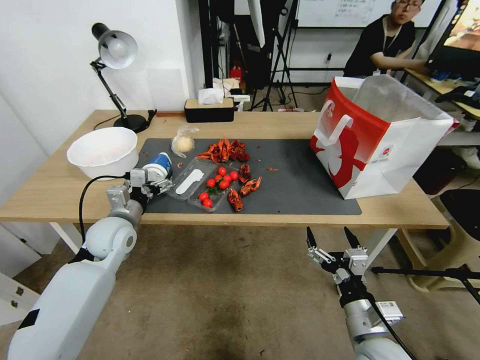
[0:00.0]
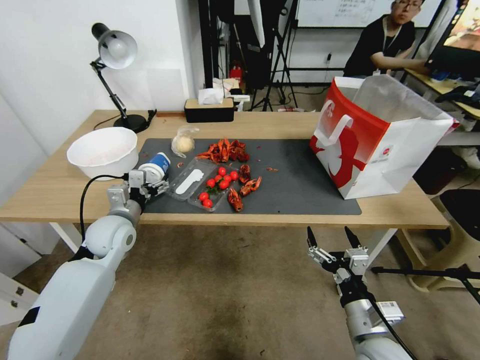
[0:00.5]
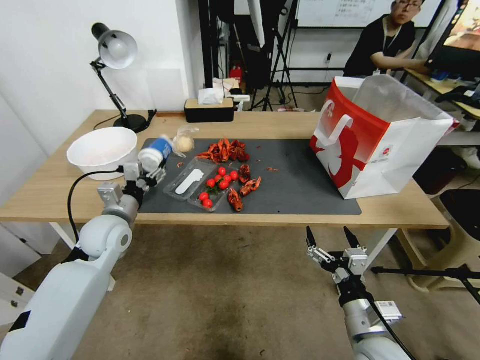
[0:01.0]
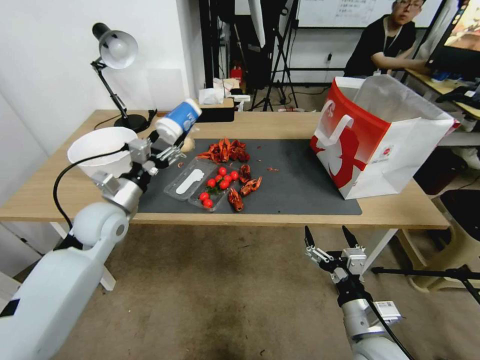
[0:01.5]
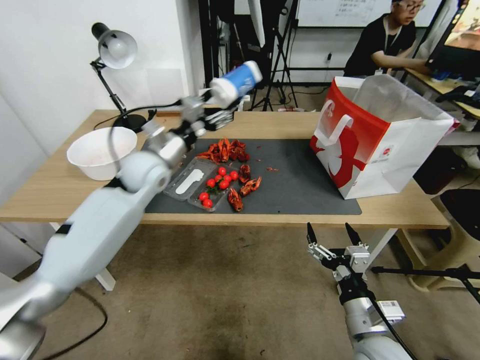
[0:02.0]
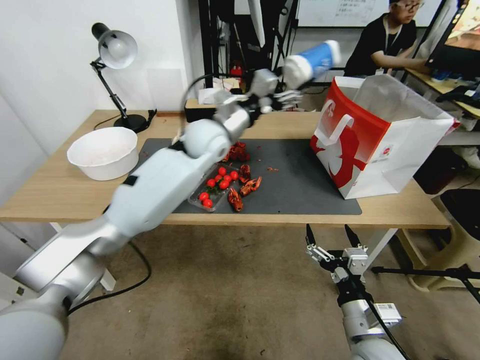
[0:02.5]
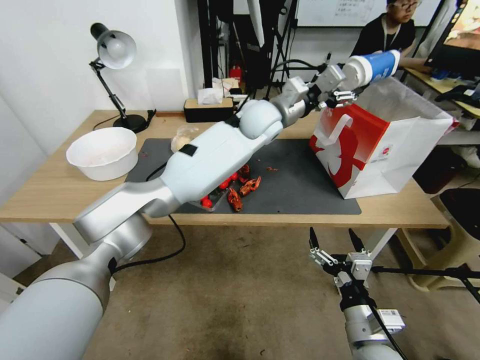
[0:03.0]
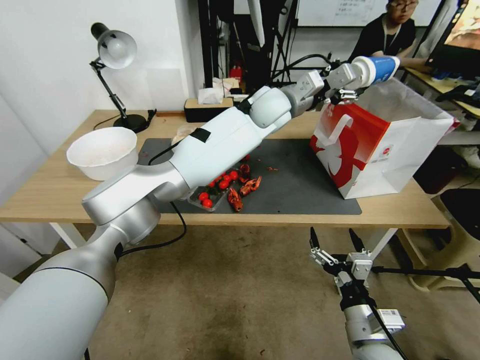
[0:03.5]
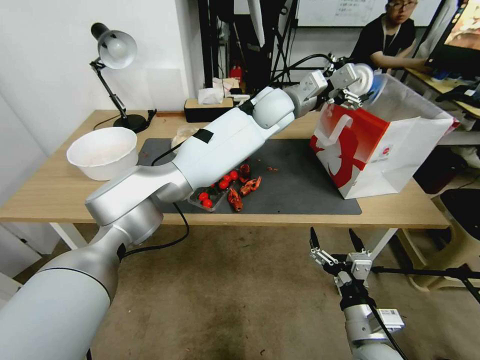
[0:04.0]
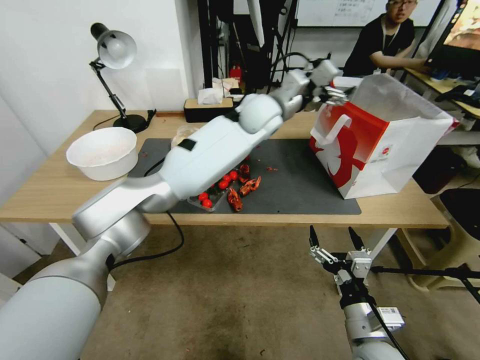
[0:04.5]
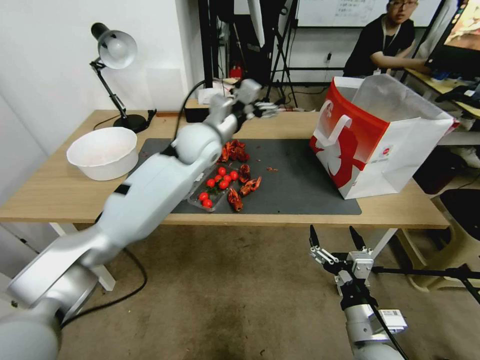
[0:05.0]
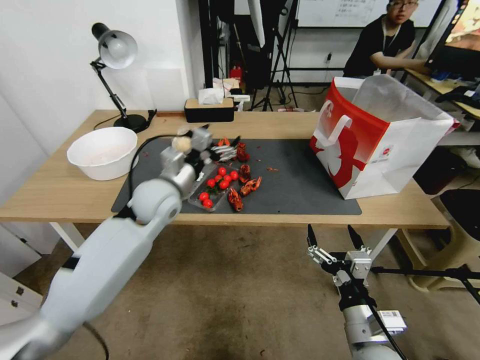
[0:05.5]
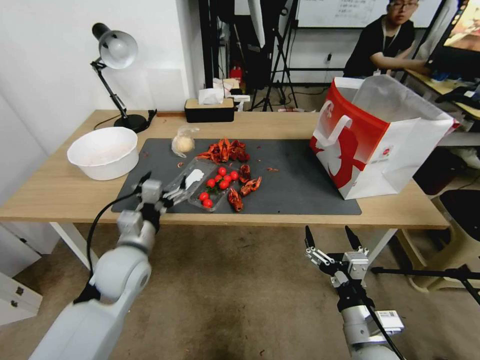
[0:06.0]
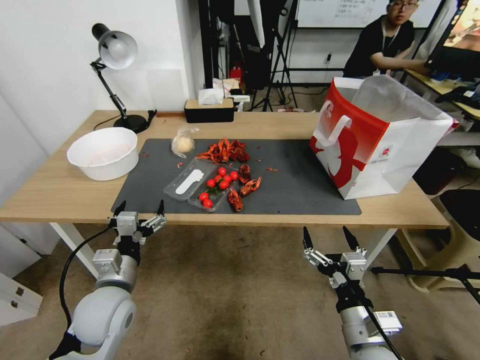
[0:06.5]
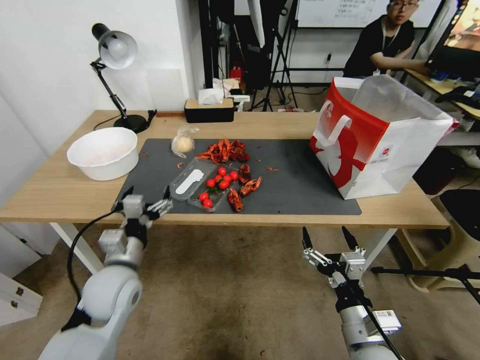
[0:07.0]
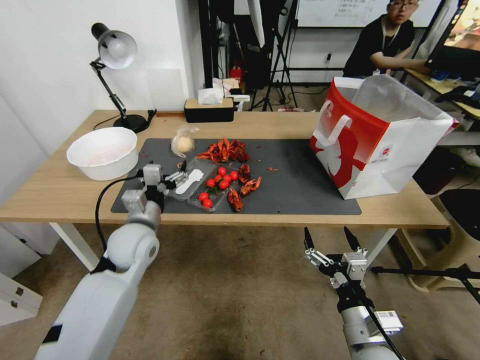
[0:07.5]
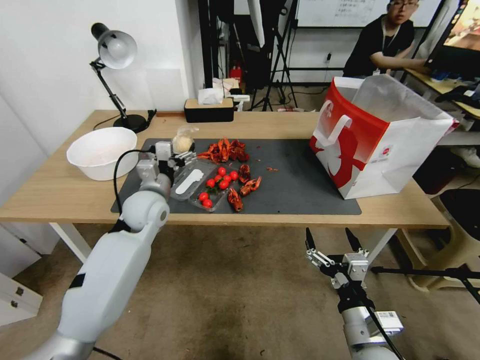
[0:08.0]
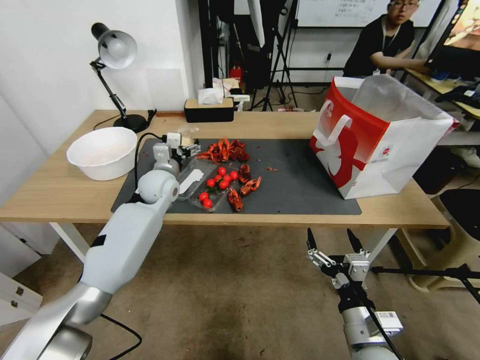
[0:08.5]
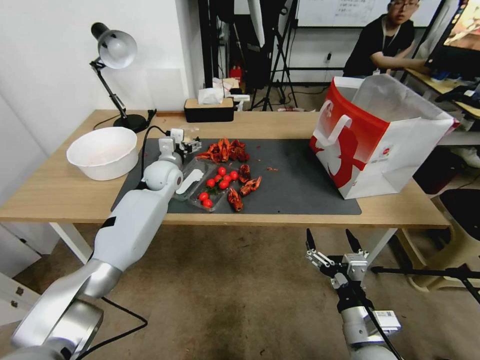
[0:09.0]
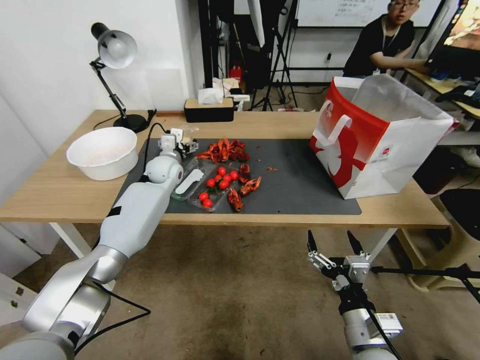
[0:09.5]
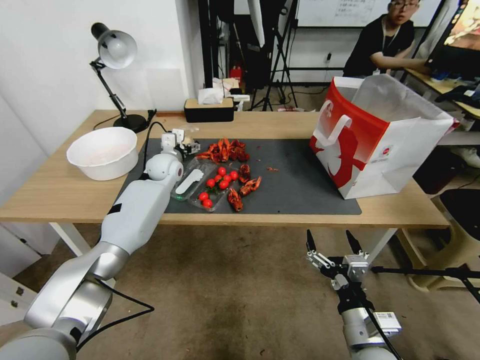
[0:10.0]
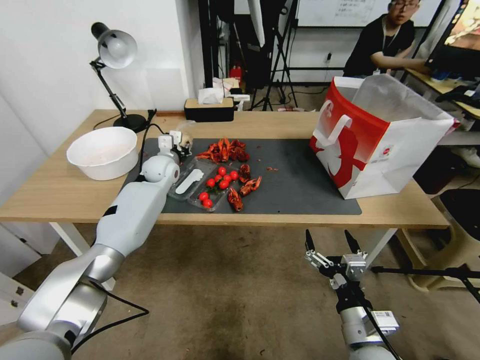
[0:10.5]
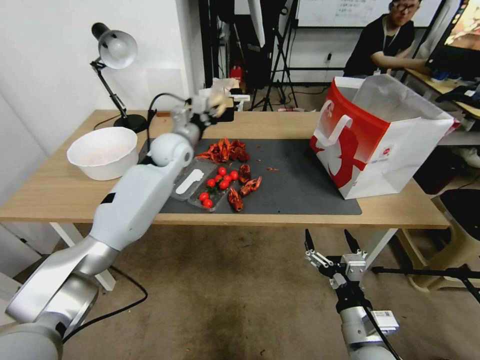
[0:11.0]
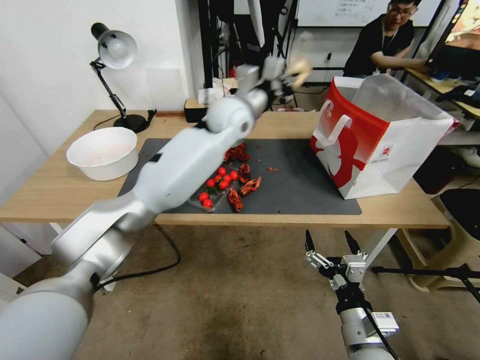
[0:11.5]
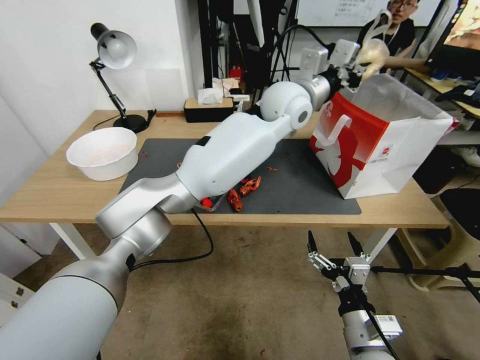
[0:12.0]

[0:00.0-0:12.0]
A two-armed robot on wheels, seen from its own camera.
0:00.0 to 0:02.0: The left gripper moves upward, forward and to the right, approximately 20 cm, and closes its fingers.
0:02.0 to 0:04.0: The left gripper goes roughly 30 cm to the right, and opens.
0:04.0 to 0:06.0: The left gripper goes roughly 40 cm to the left, backward and downward.
0:06.0 to 0:08.0: The left gripper travels forward by about 10 cm.
0:08.0 to 0:10.0: The left gripper heads forward, covering some 15 cm.
0:10.0 to 0:12.0: The left gripper travels to the right and upward by some 40 cm, and closes its fingers.

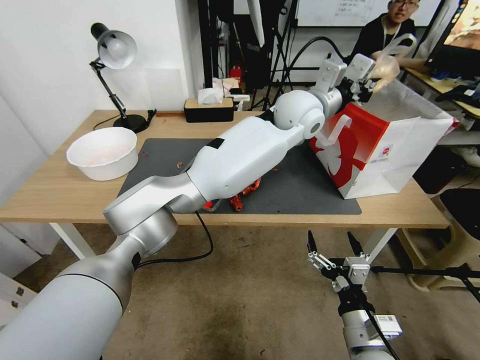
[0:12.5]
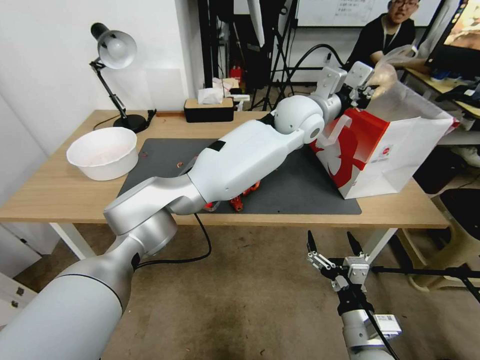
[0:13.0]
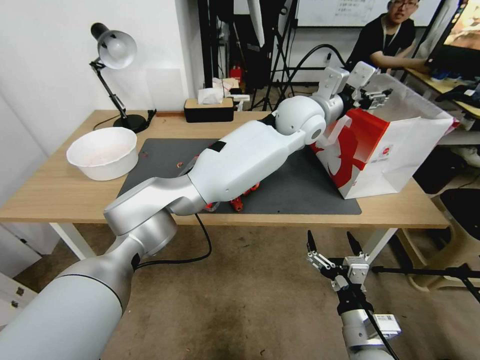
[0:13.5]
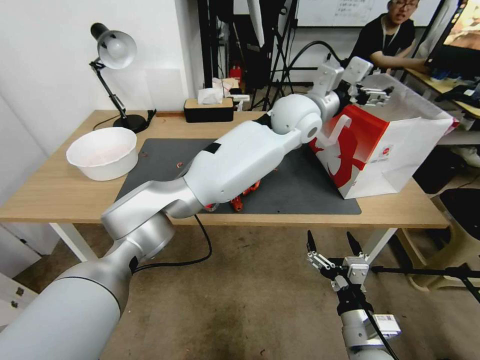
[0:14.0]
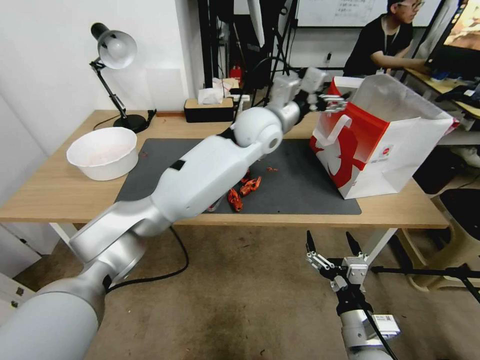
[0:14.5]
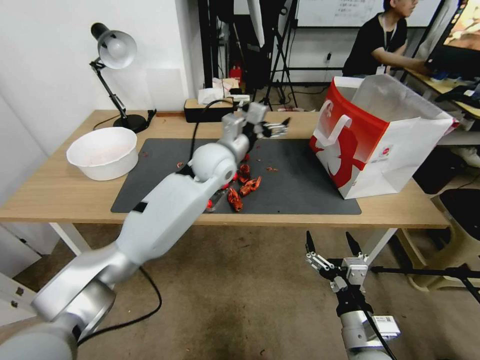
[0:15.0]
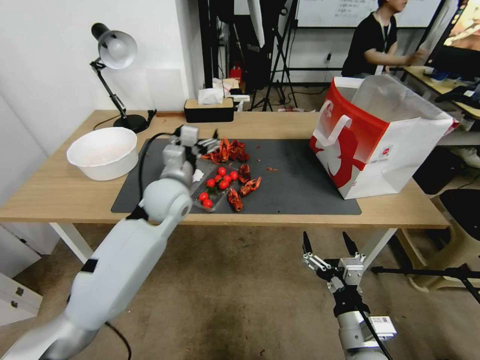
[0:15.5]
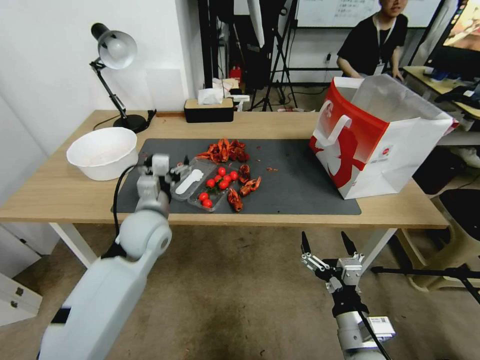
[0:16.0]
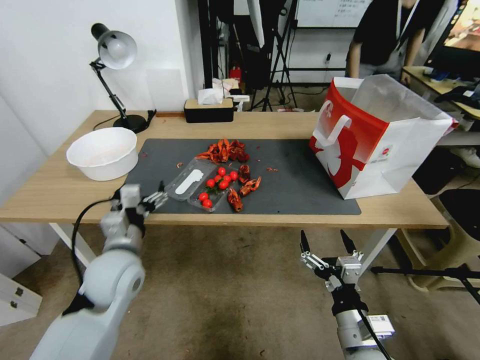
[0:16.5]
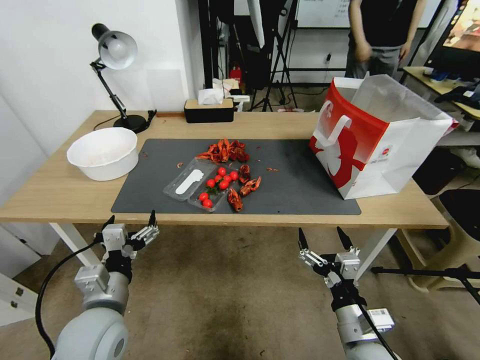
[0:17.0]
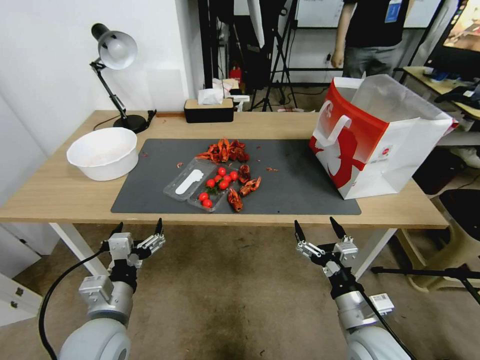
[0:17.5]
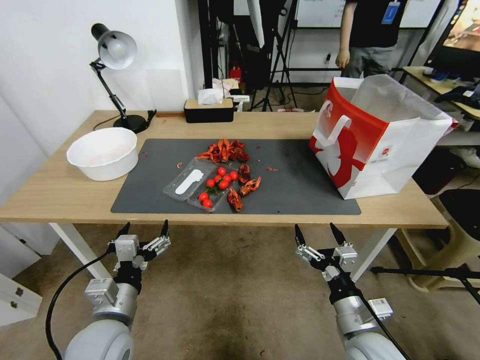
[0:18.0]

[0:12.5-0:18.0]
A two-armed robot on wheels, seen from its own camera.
0:12.5 to 0:14.5: The left gripper is displaced to the left by approximately 10 cm, and opens up.
0:14.5 to 0:16.0: The left gripper goes about 30 cm to the left, downward and backward.
0:16.0 to 0:18.0: The left gripper travels backward and downward by roughly 25 cm.
